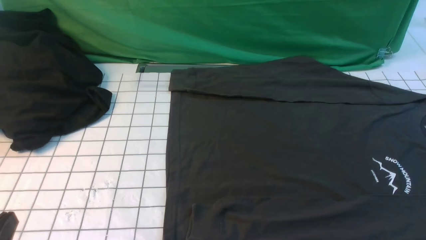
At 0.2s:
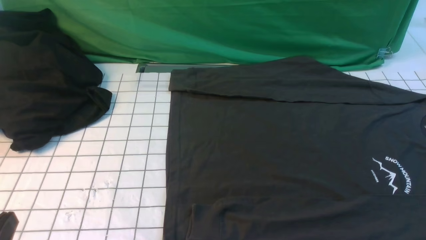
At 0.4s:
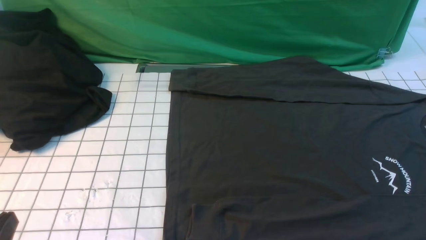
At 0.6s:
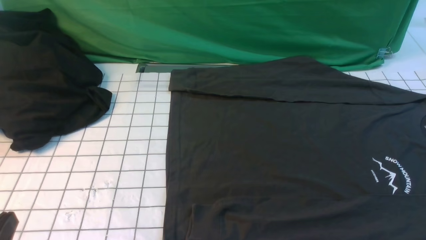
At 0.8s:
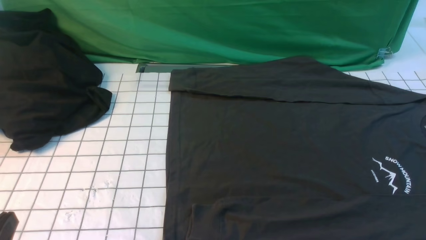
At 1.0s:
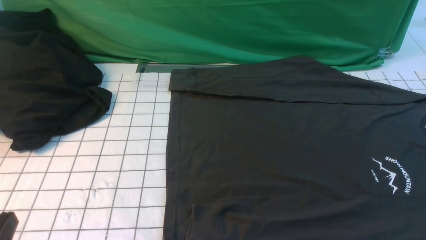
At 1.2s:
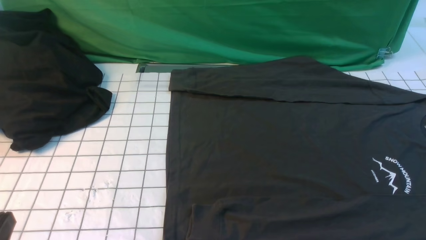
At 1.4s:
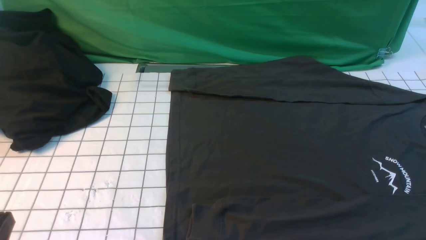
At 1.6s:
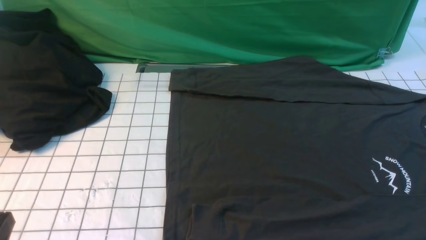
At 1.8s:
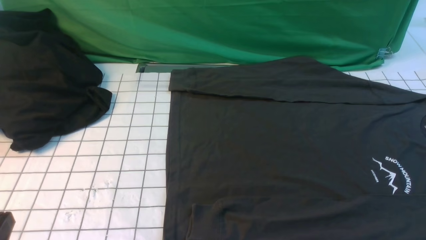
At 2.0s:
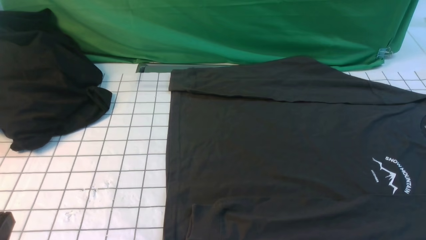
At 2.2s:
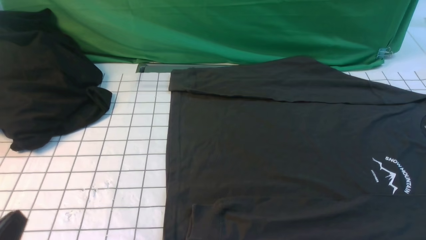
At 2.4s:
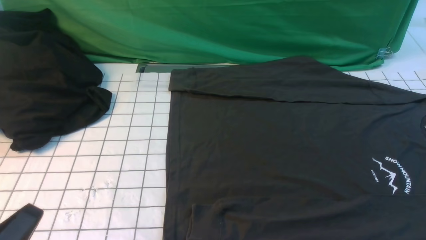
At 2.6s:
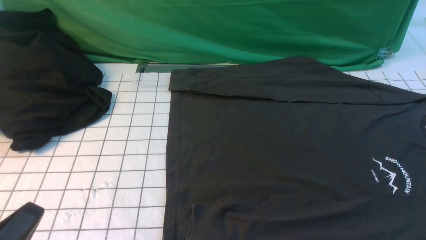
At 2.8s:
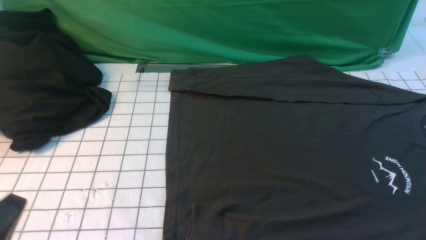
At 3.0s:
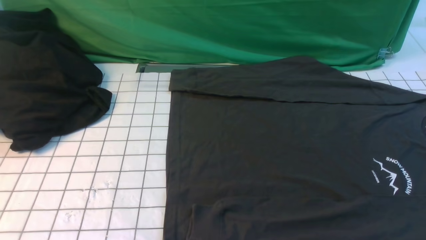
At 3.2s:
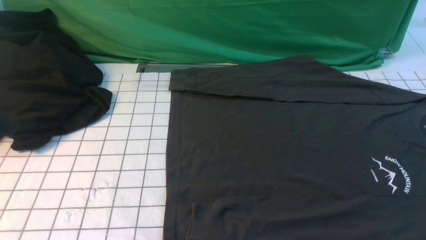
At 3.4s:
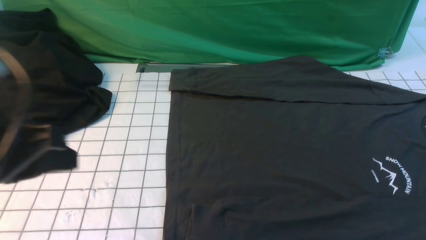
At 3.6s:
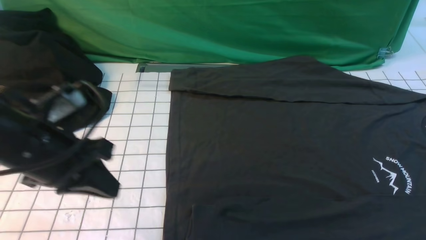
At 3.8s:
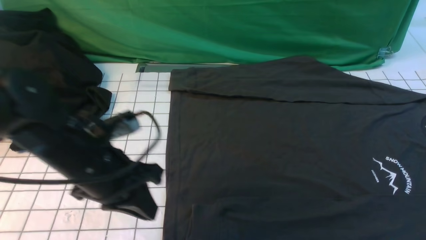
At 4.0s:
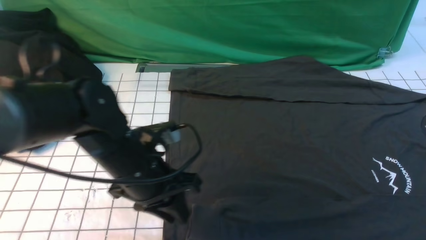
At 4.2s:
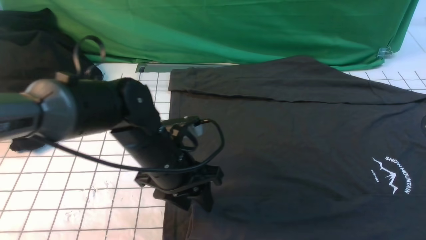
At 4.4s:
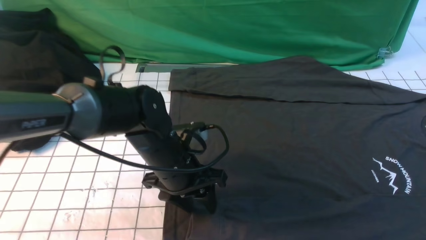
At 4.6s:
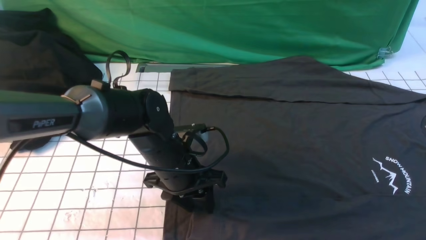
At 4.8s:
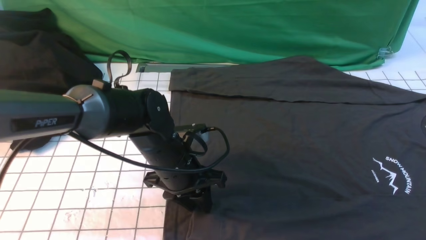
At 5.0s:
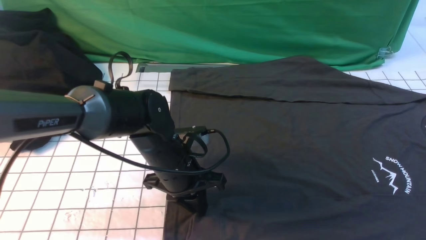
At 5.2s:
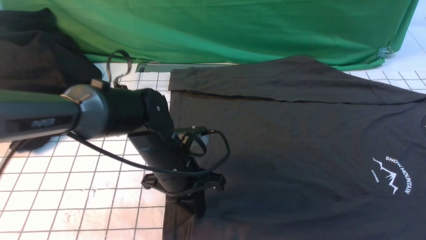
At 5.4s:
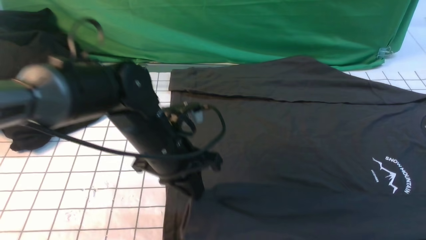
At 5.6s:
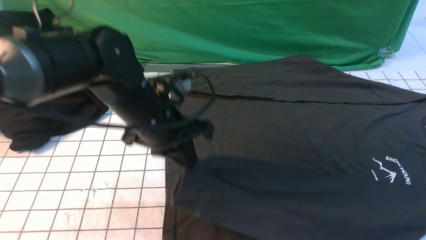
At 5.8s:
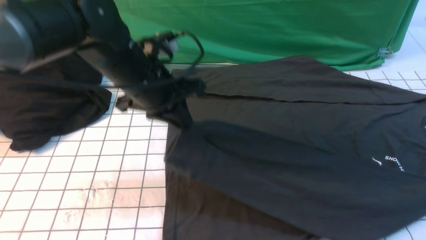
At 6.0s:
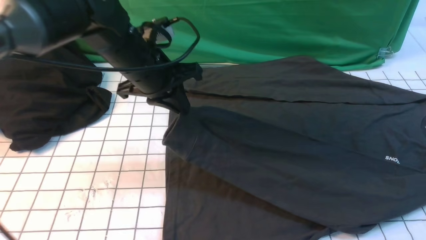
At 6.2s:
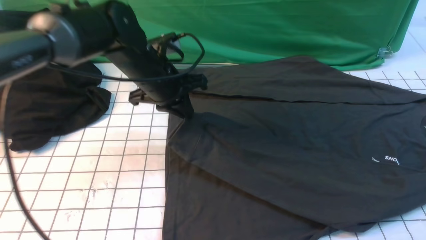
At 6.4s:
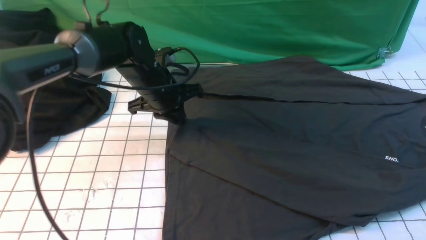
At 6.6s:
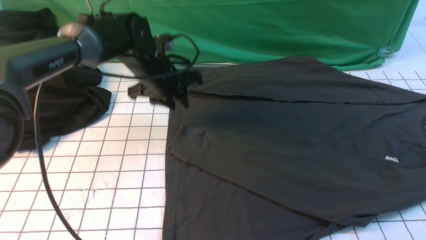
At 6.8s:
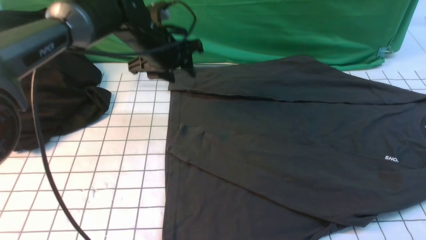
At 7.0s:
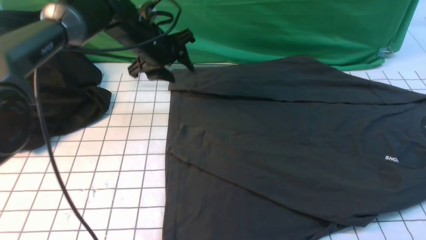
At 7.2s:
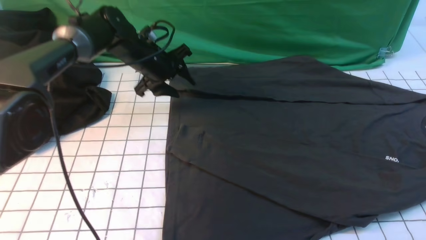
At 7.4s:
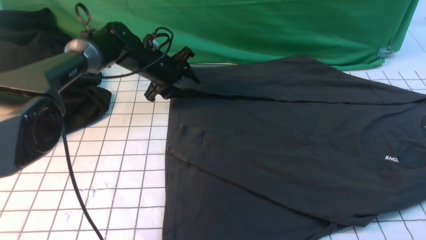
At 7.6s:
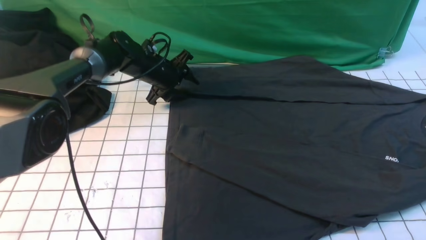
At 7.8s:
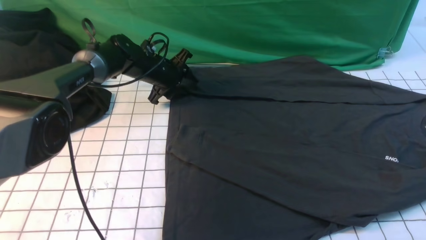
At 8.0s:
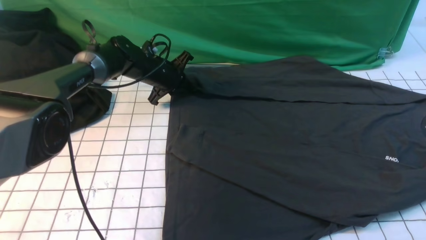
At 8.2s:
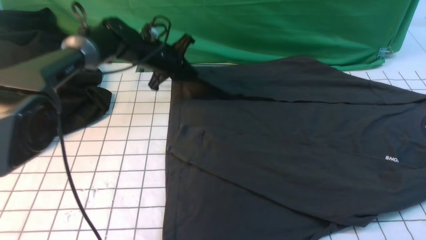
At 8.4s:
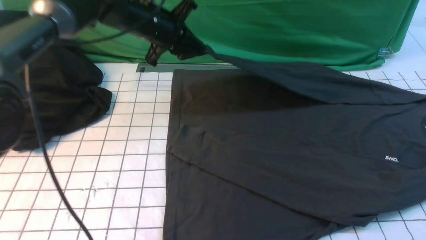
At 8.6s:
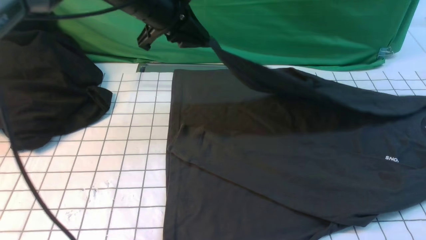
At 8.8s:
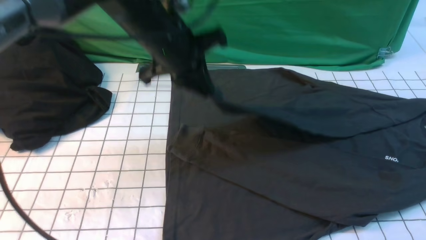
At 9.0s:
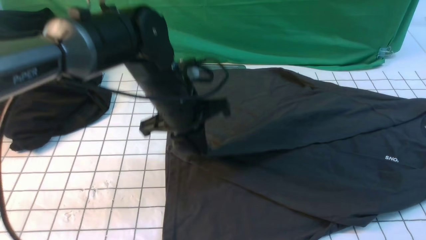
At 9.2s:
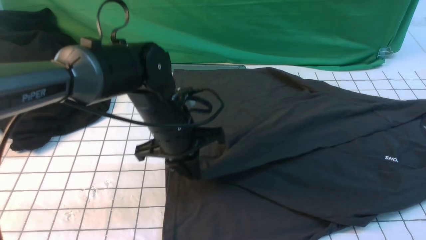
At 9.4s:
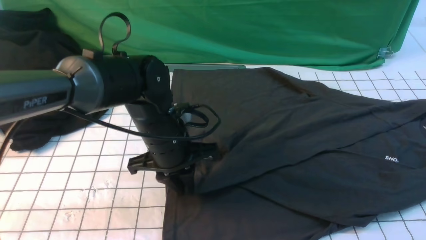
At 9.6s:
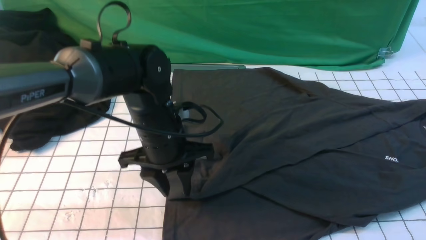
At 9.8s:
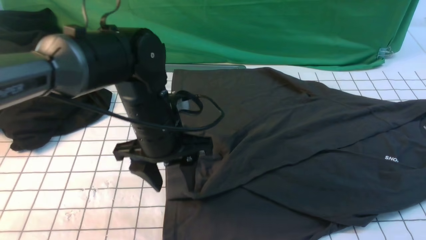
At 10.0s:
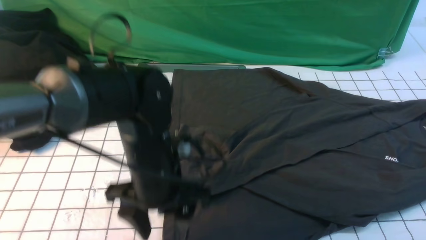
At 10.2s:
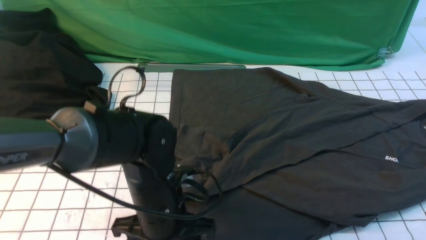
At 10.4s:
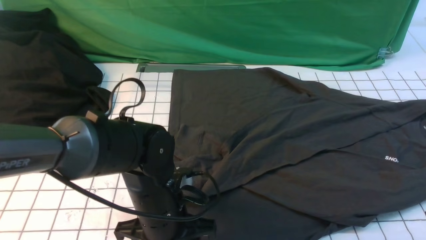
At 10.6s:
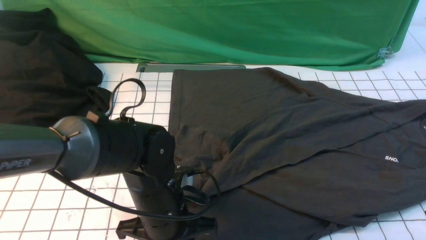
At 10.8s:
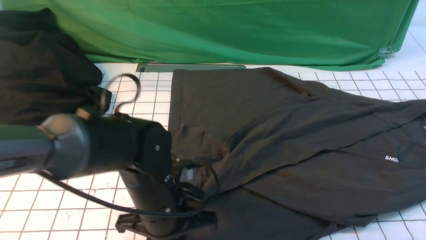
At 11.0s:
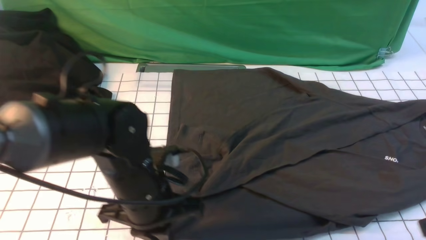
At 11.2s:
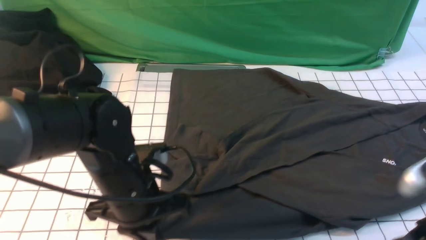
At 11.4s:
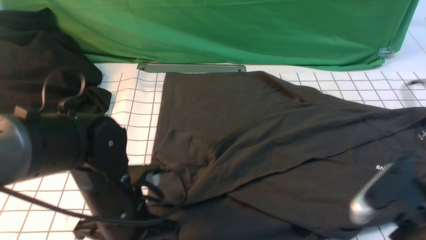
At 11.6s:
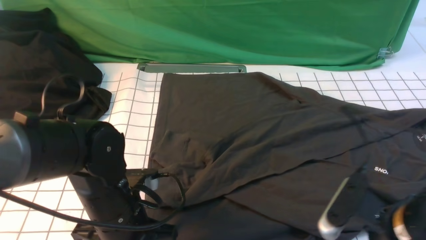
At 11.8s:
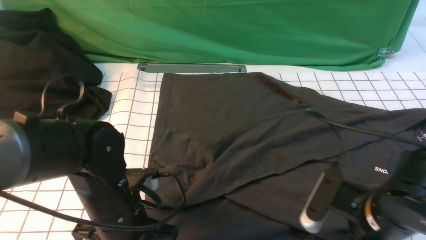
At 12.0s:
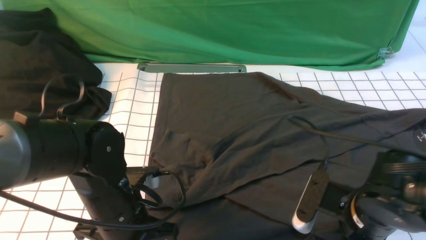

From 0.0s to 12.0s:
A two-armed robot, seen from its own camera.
Step, from 0.0s to 5.2s: use the left arm to clamp the cuff closest to it.
Step, from 5.4s to 6.6s: use the left arm to drag and place the cuff at the centered position on the left edge of the fabric.
Step, from 6.8s to 8.0s: use the left arm to clamp the cuff farthest from it.
Step, from 8.2s to 9.6s: use the left arm to drag and drop the cuff onto the cuff closest to the left arm.
From 0.0s to 1.6s: Both grippers stay put.
From 3.0s to 4.4s: The left gripper heads forward, to the right and downward, covering approximately 30 cm, and opens its fingers, while the right gripper heads forward, covering roughly 10 cm.
From 4.4s to 6.0s: The left gripper moves upward and forward, approximately 15 cm, and closes its fingers.
From 6.0s to 7.6s: The left gripper travels forward and downward by roughly 20 cm, and opens up.
From 7.6s to 9.0s: The left gripper is displaced backward and upward by approximately 20 cm, and closes.
From 9.0s to 10.4s: The left gripper travels backward and downward by roughly 15 cm, and opens up.
From 10.4s to 12.0s: The right gripper goes some 15 cm to the left, downward and forward, and opens. The left gripper moves to the left, some 5 cm, and closes.

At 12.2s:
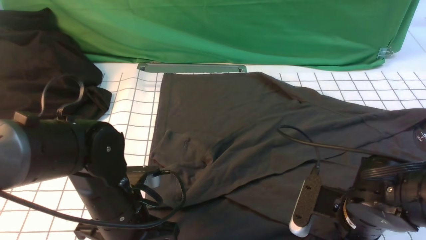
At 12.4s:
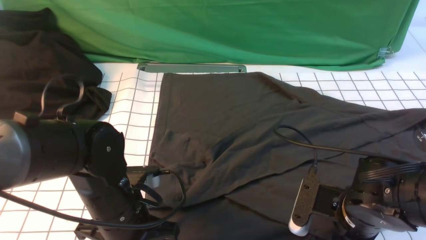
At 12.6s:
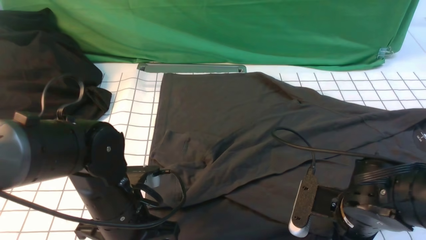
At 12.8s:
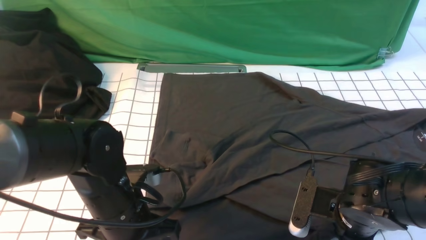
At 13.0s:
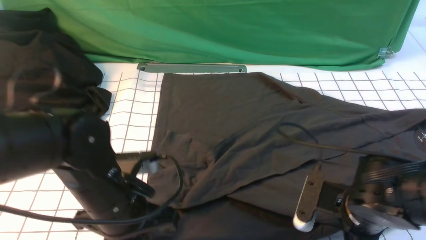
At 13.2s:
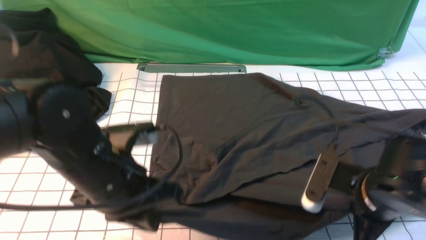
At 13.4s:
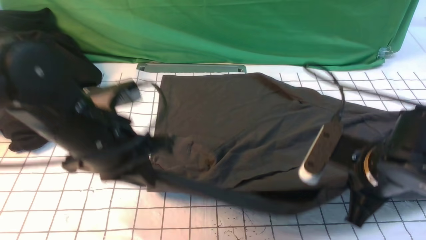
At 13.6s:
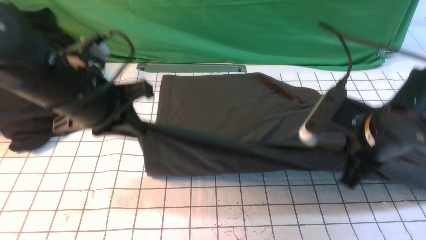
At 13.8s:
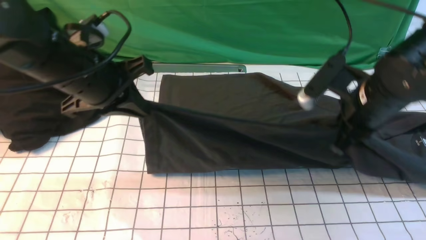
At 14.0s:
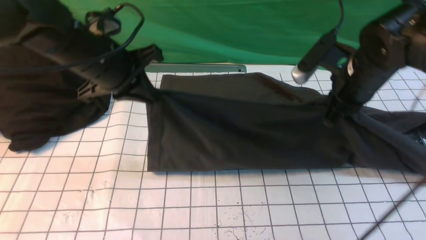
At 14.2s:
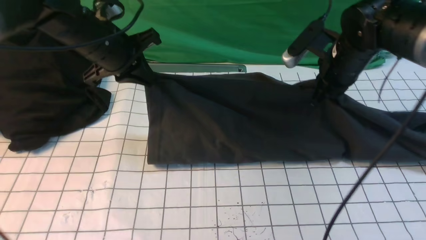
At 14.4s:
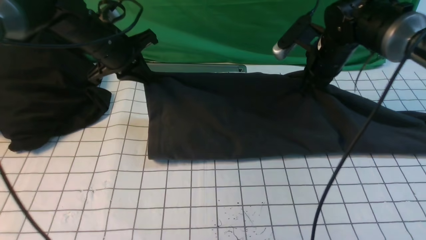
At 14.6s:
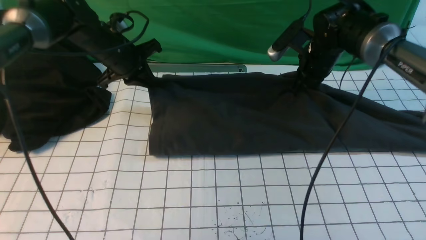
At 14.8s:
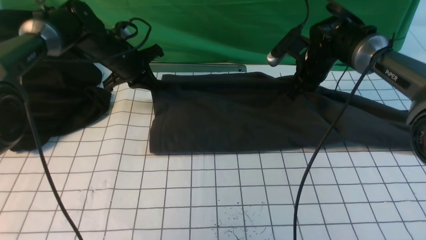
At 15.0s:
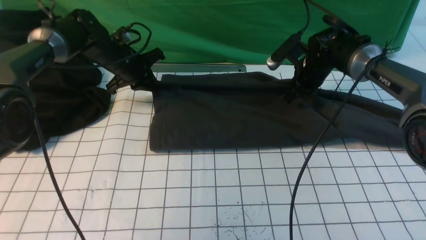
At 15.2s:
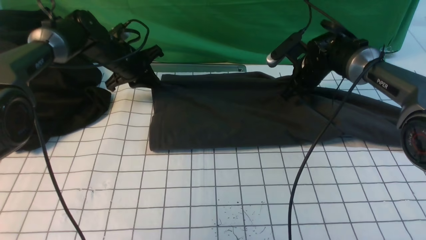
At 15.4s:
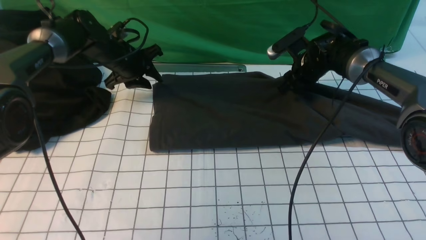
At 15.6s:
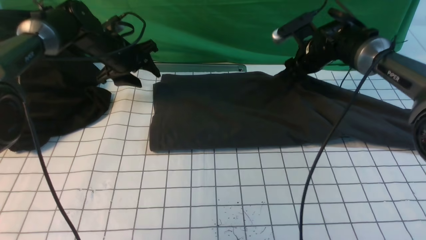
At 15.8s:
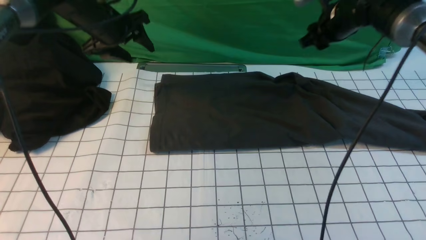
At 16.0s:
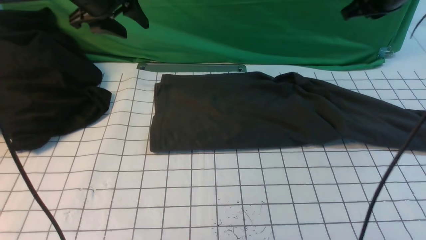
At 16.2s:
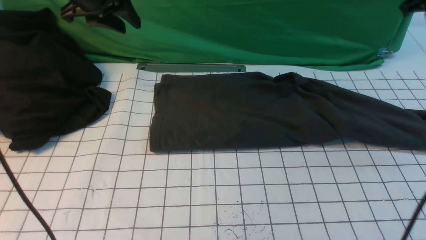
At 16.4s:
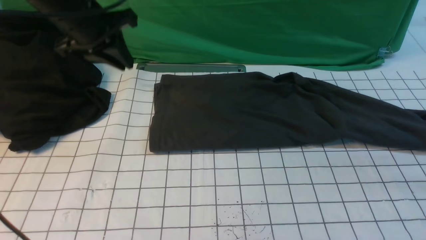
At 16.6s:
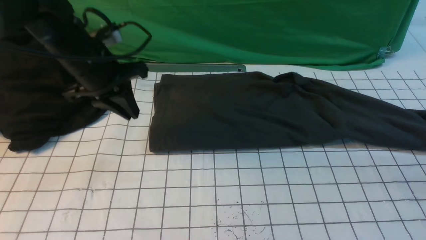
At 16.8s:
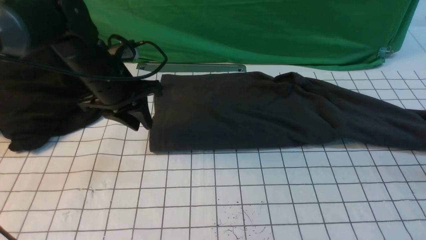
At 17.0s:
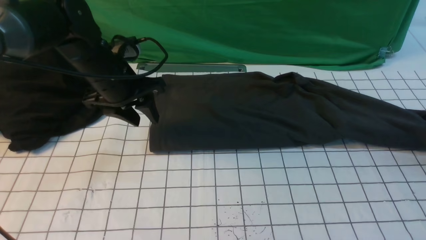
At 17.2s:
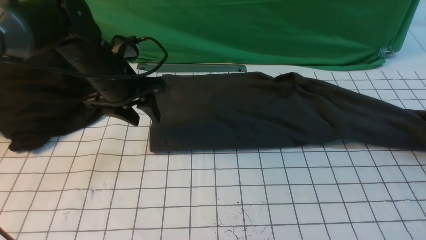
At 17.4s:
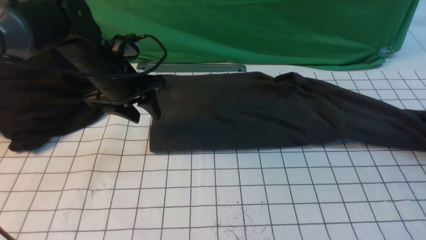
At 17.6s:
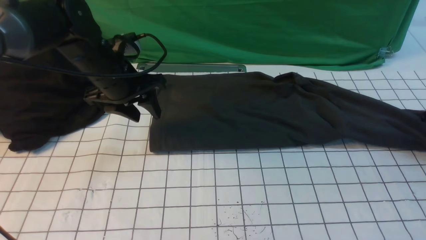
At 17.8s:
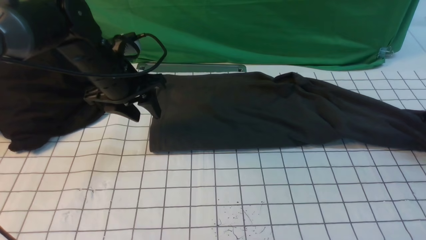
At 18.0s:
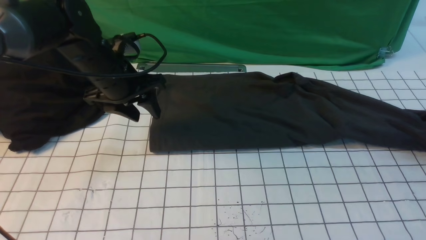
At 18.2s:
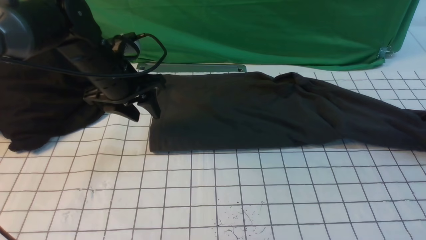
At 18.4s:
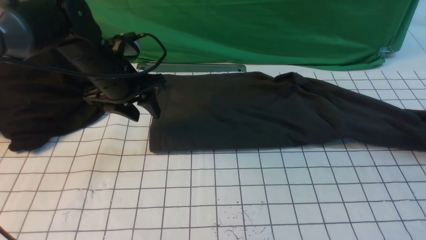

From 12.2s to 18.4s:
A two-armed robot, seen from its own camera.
Step, from 13.4s to 15.6s: use both arms to drag the lower edge of the fabric forward and fold it over the upper edge.
From 12.2s to 13.8s: The left gripper moves upward and forward, some 15 cm; the right gripper heads forward and upward, covering approximately 15 cm, and closes its fingers.
From 13.8s to 15.4s: The two grippers go some 25 cm forward and downward. The right gripper opens. Meanwhile the left gripper opens up.
From 15.4s to 16.8s: The right gripper moves to the right and backward, about 30 cm, and closes, then reopens. The left gripper goes approximately 15 cm backward and upward.
From 16.8s to 18.4s: The right gripper goes some 5 cm downward, and closes, then reopens.
